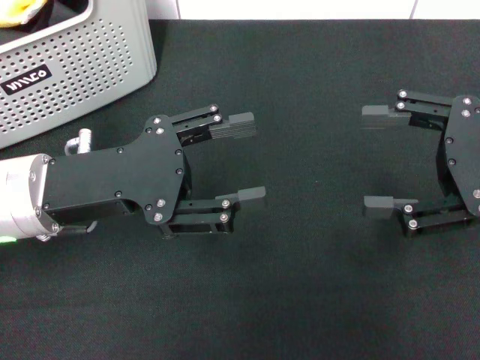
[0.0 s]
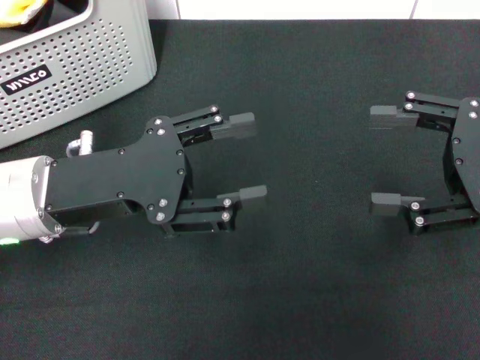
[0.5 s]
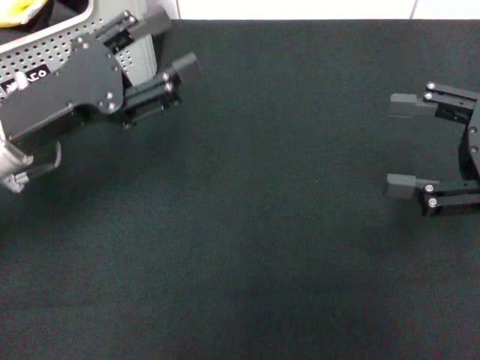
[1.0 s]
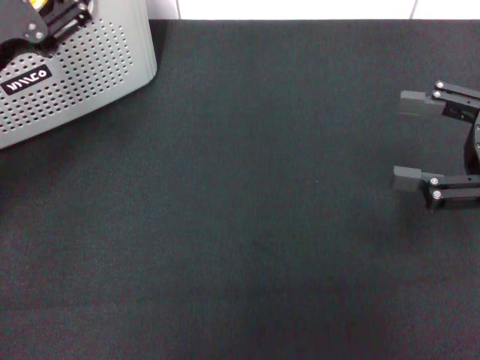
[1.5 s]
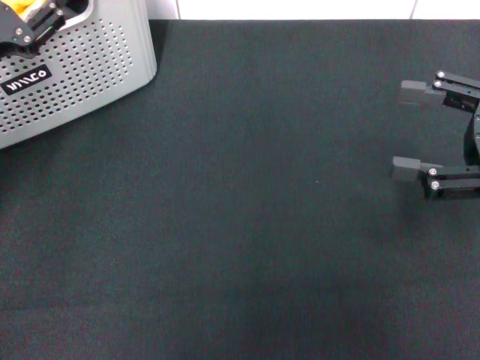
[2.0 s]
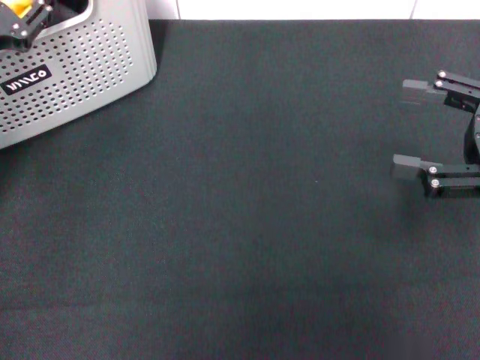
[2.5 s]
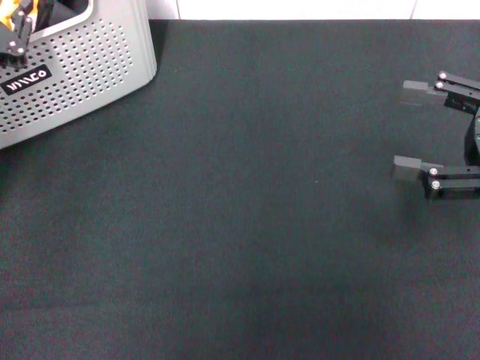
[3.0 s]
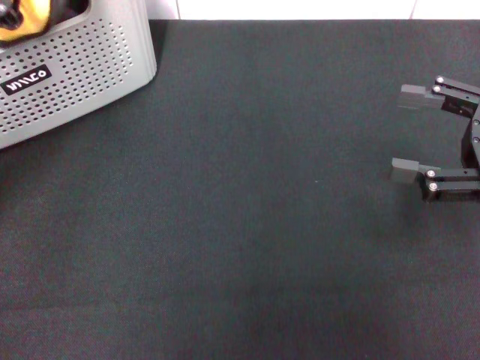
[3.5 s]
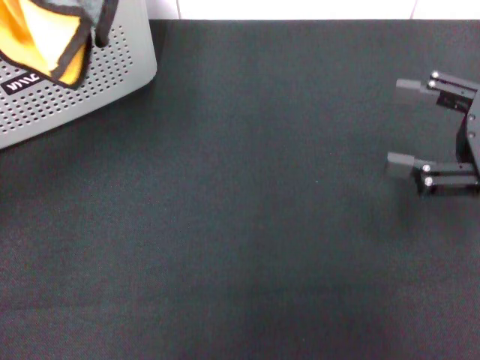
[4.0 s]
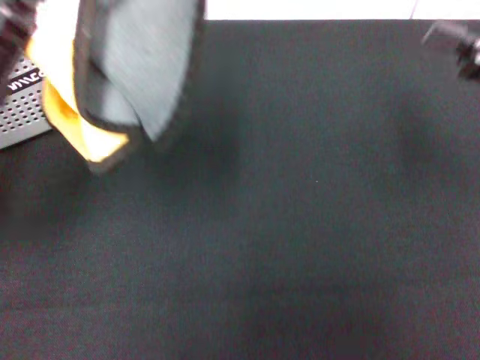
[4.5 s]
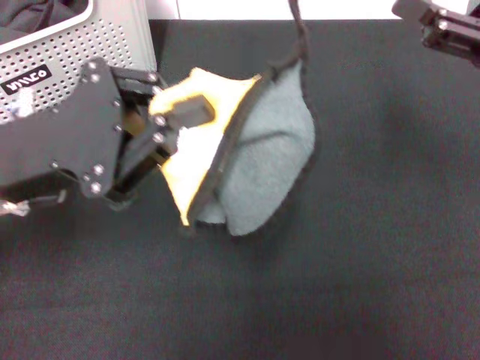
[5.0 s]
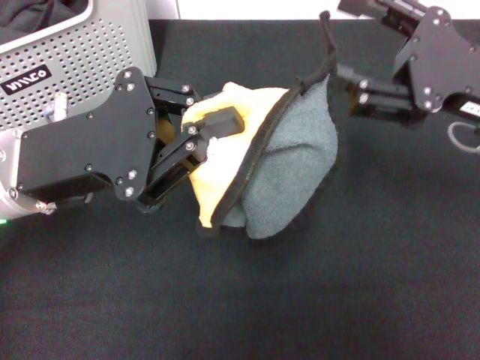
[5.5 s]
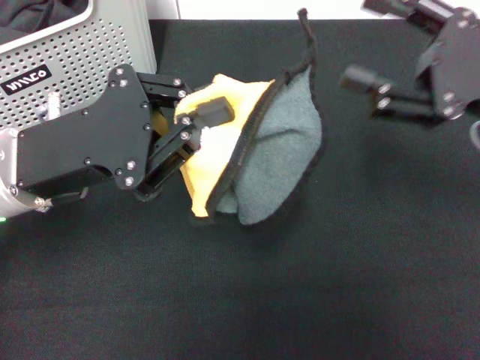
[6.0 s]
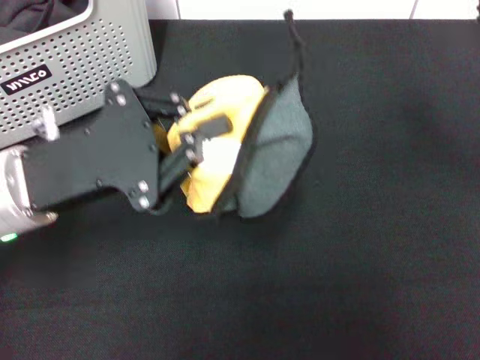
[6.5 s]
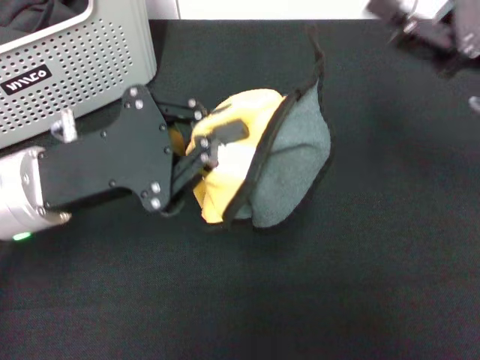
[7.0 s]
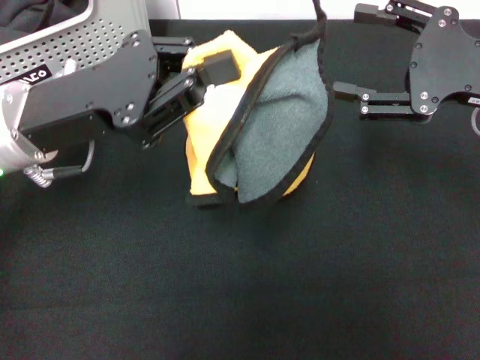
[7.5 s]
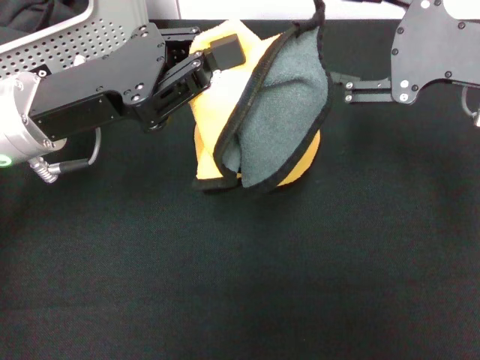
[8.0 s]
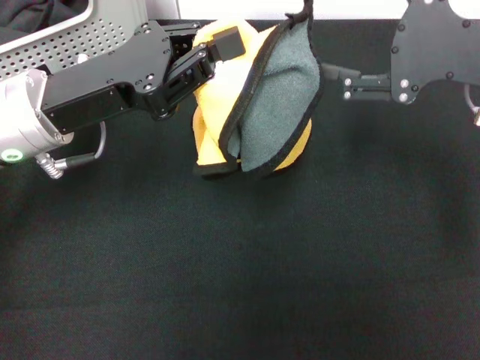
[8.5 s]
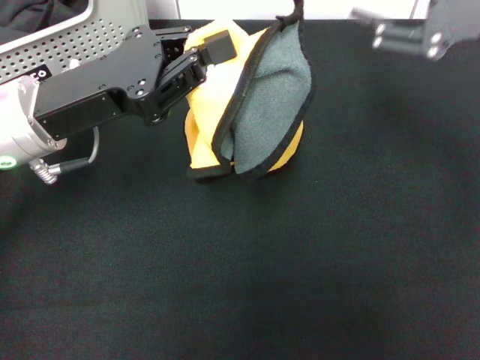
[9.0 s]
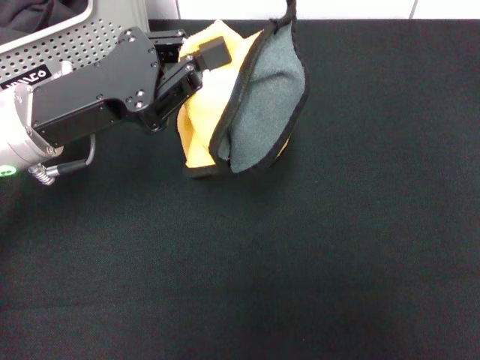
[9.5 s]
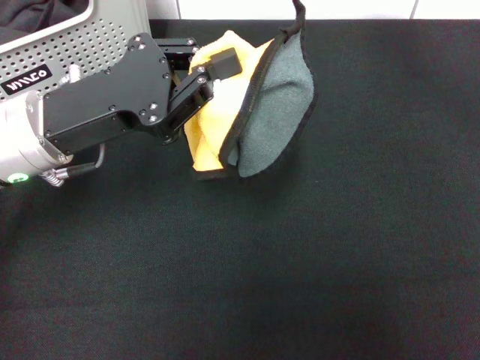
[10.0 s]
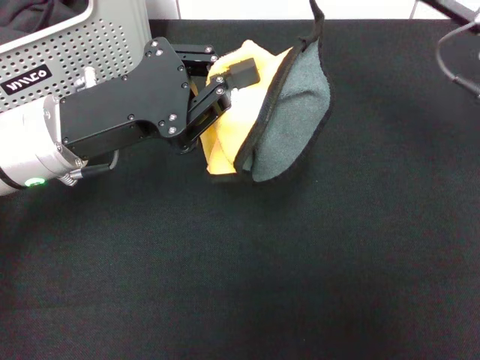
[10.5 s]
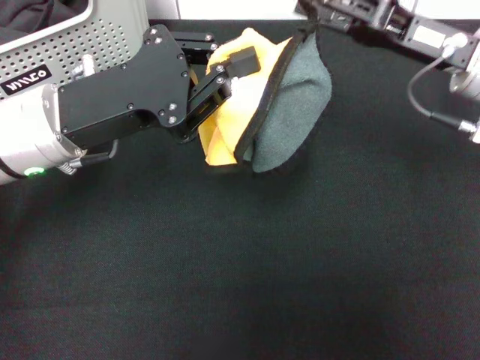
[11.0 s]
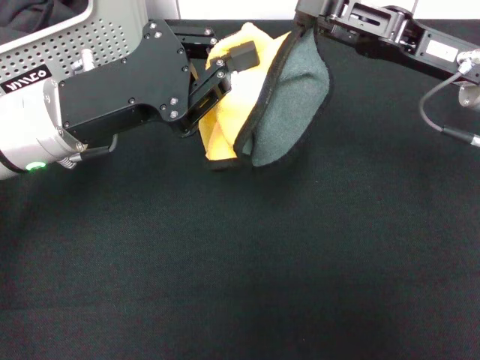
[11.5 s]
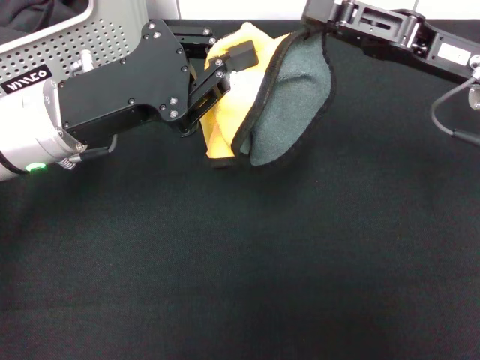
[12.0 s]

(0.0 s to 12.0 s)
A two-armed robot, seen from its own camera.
Task of the whole recording: pick up the towel from the storage box and lay it flat on the black tablecloth.
Step, 0.0 s - 3.0 s: Pick up a towel with the left gripper.
0.0 s - 2.0 s: The left gripper shifts approximately 10 cm to the left and forward.
2.0 s - 4.0 s: The left gripper goes roughly 5 cm upward, and closes.
4.0 s - 6.0 s: The left gripper shifts some 10 cm to the right.
8.0 s - 10.0 s: The right gripper heads to the right, covering roughly 5 cm.
10.0 s - 12.0 s: The right gripper moves to the left, some 5 cm, and closes up.

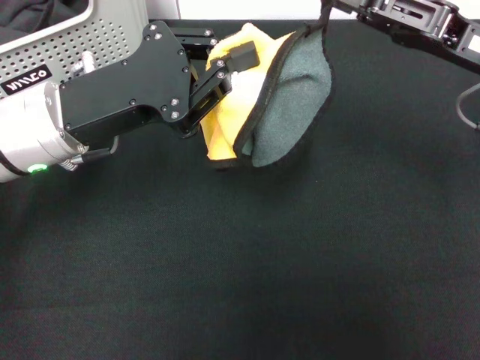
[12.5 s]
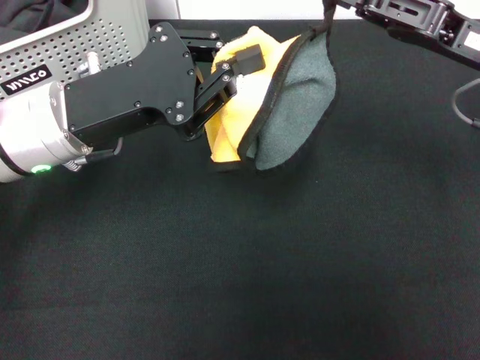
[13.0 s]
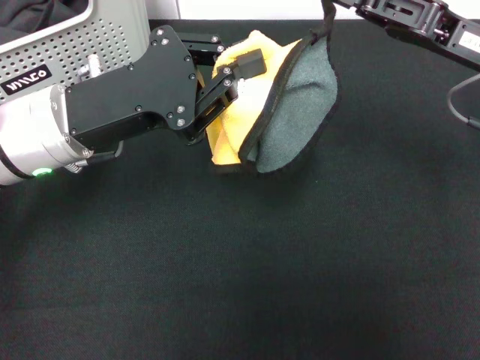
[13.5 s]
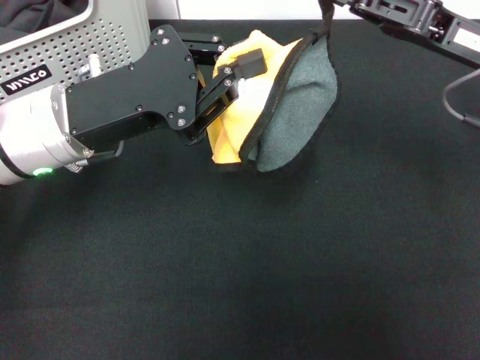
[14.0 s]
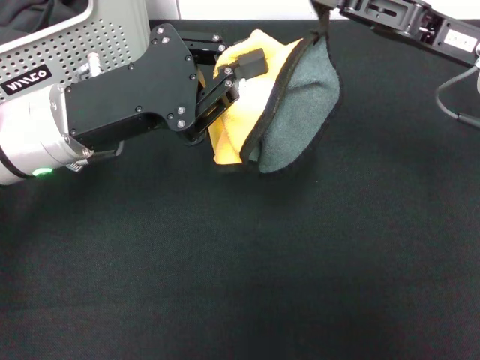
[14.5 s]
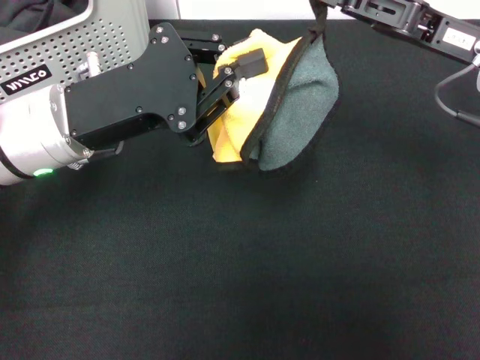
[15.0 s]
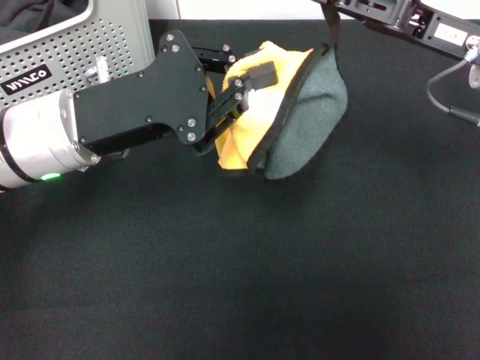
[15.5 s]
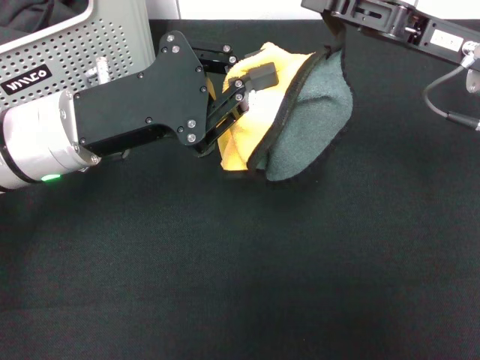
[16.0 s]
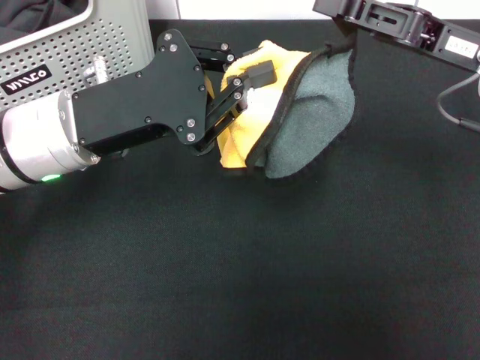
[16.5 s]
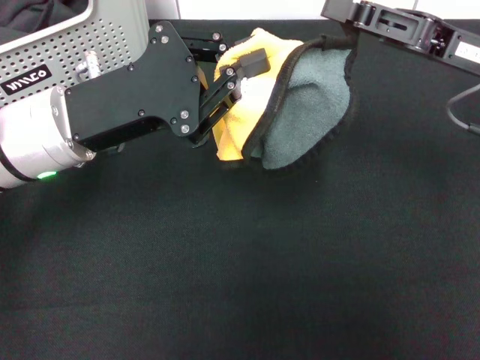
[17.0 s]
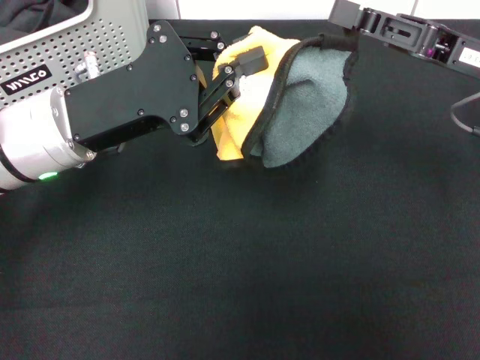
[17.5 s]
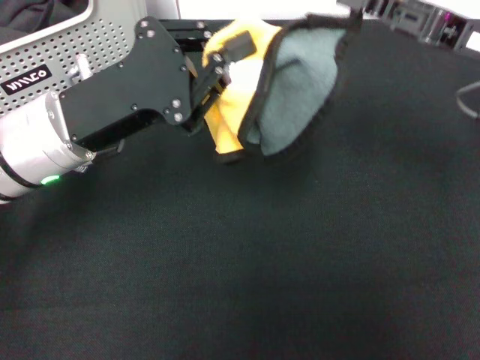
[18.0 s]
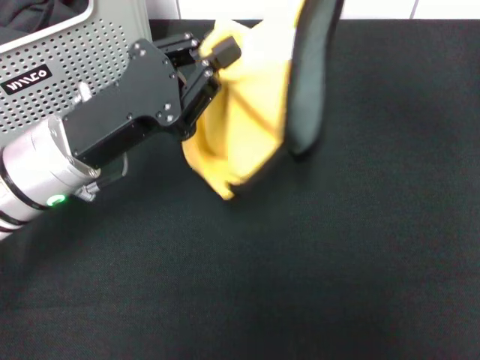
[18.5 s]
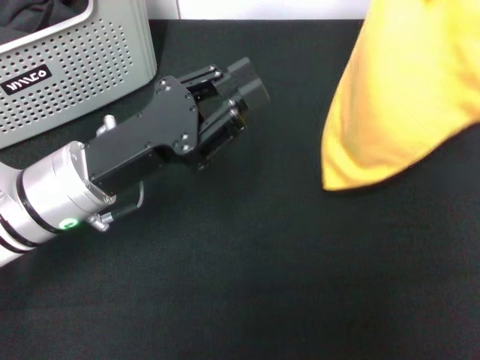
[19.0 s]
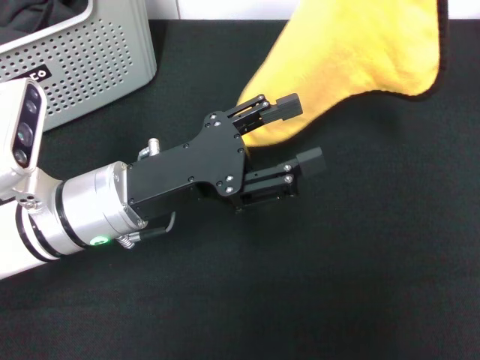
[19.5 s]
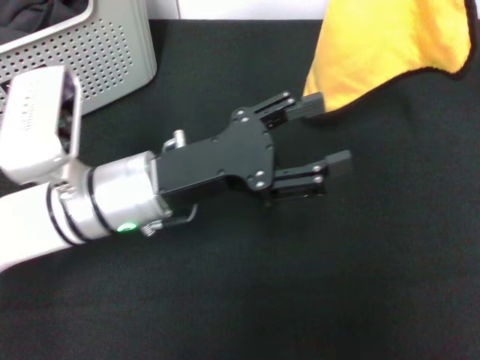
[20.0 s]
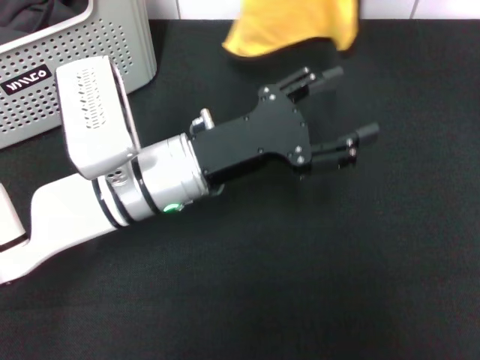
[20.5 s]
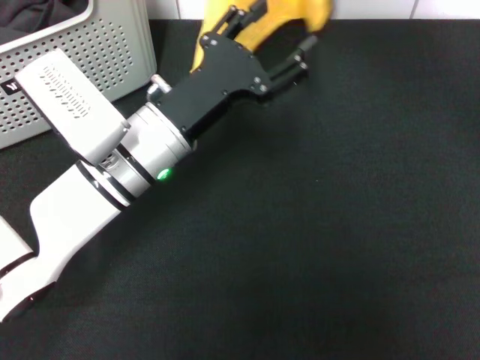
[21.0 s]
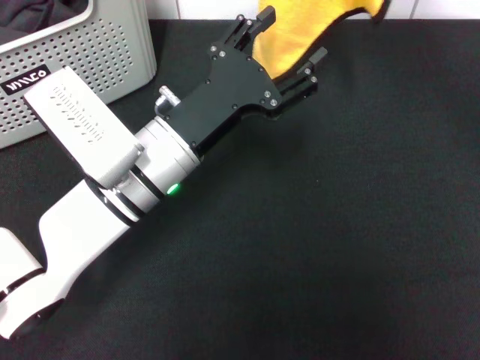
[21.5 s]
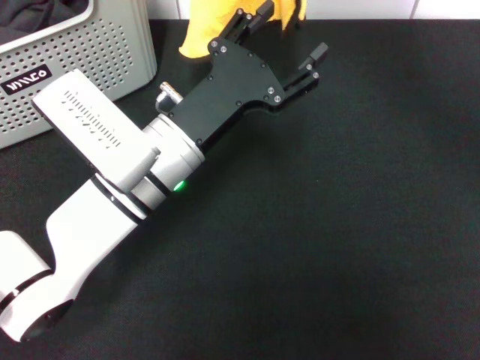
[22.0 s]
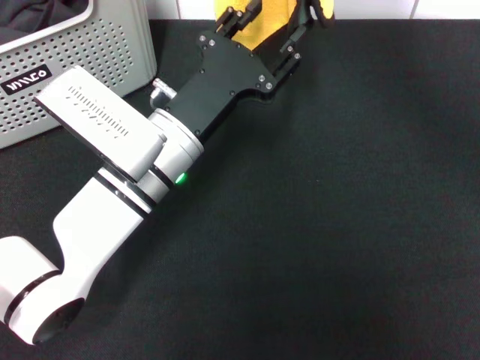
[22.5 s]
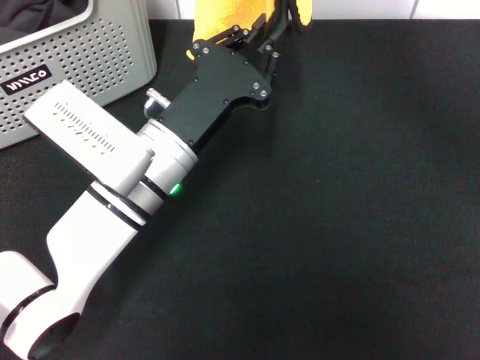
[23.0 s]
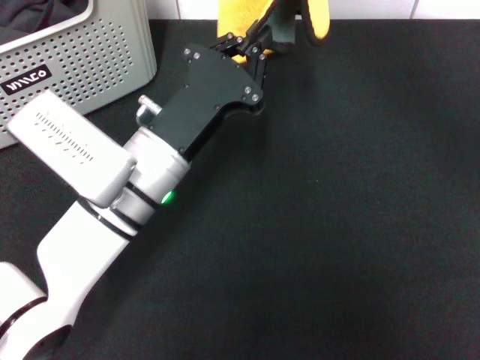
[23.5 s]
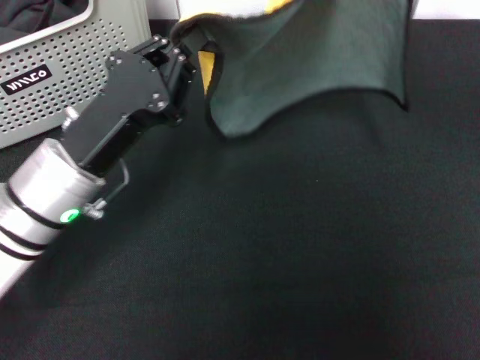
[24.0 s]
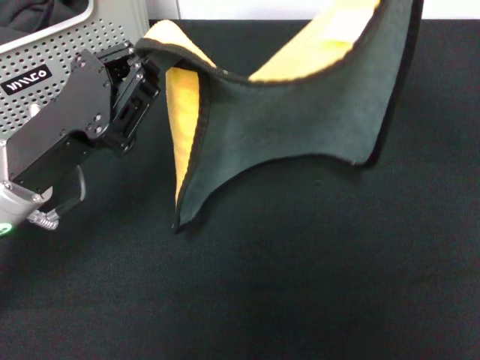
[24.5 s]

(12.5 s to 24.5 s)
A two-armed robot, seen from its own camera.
Task of the whole recording: pick up the towel from the storage box and lay it flat on the black tablecloth.
Step, 12.5 s - 17.5 s: Spread the towel flat with the left gripper.
12.5 s - 16.5 s: The grippers make only small movements.
16.5 s - 18.5 s: The right gripper is displaced upward by approximately 5 cm.
18.5 s - 20.5 s: The right gripper heads upward and to the left, covering approximately 10 cm; the left gripper moves to the right, some 10 cm, and opens.
20.5 s - 22.5 s: The right gripper goes some 5 cm to the left.
22.5 s - 24.5 s: The right gripper travels to the right, backward and downward by approximately 20 cm; the left gripper shifts about 15 cm to the left and backward, and closes its fingers.

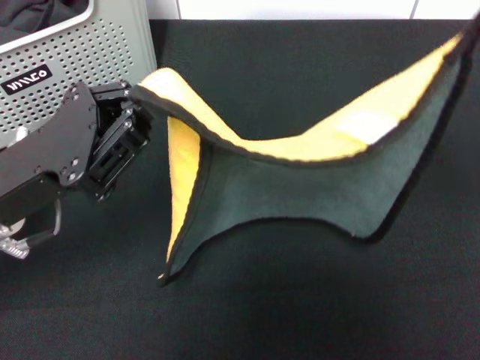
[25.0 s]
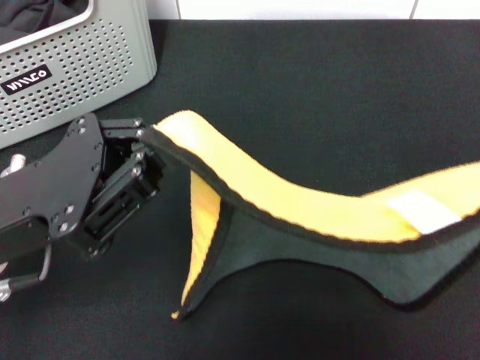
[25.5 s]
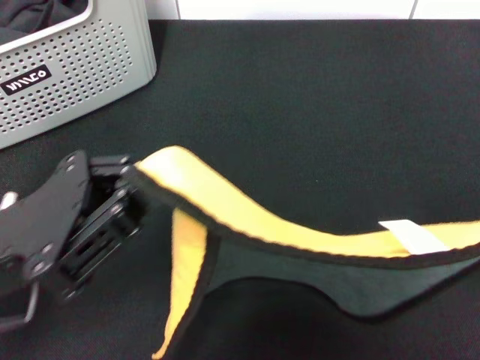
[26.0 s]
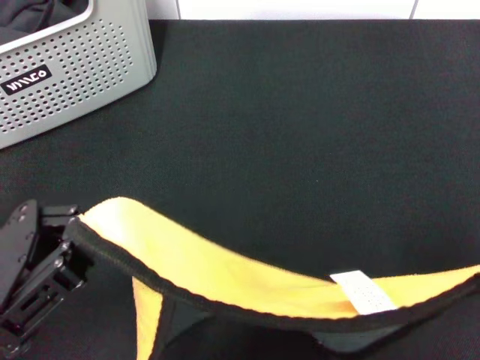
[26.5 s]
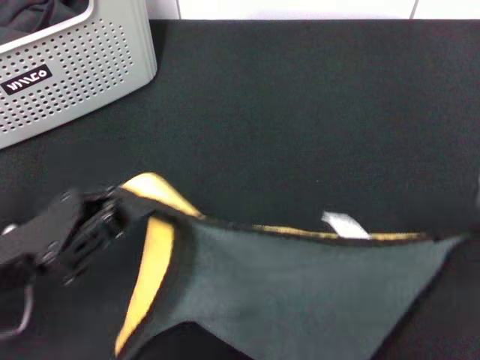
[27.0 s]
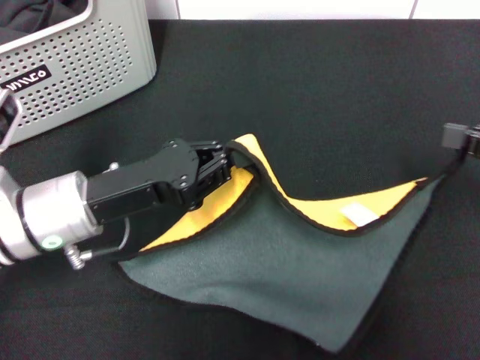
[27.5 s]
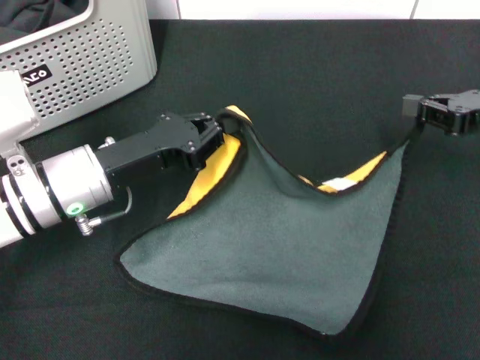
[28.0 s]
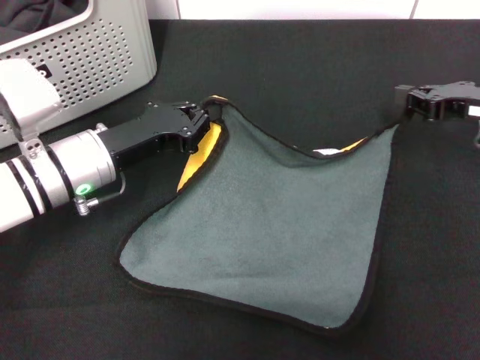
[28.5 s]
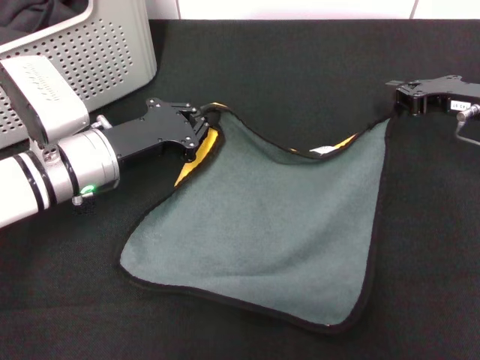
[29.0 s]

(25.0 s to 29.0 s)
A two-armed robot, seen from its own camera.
Task of the whole recording: pick up the towel from the storage box and lay it flat on the black tablecloth.
25.0 s - 27.0 s: The right gripper goes about 5 cm downward. Meanwhile the left gripper heads backward, covering approximately 5 cm.
27.0 s - 29.0 s: The left gripper goes some 15 cm forward, while the right gripper shifts about 20 cm forward and downward.
